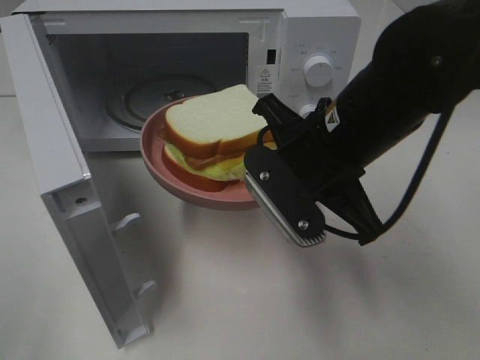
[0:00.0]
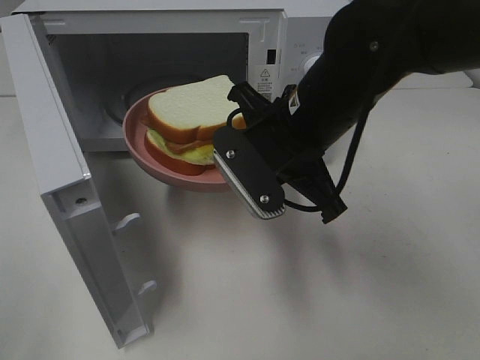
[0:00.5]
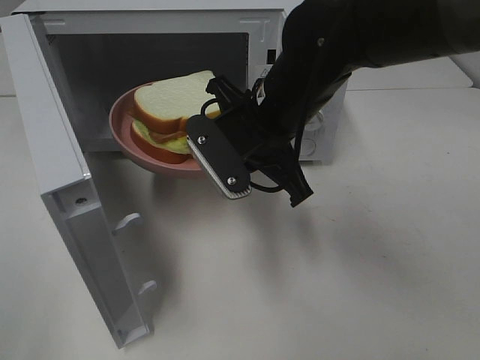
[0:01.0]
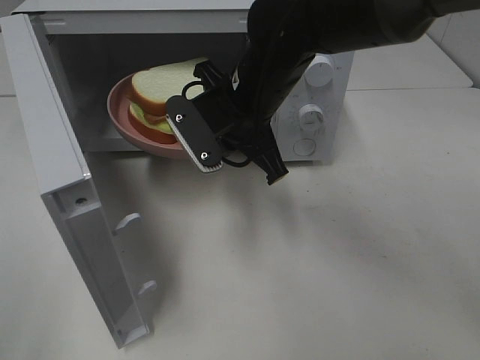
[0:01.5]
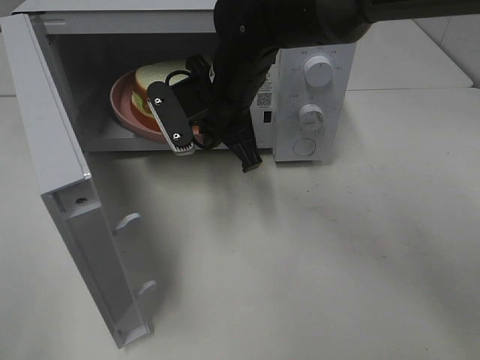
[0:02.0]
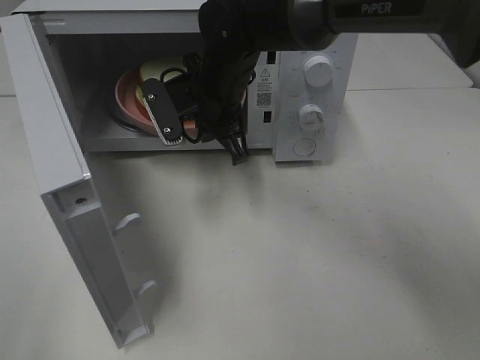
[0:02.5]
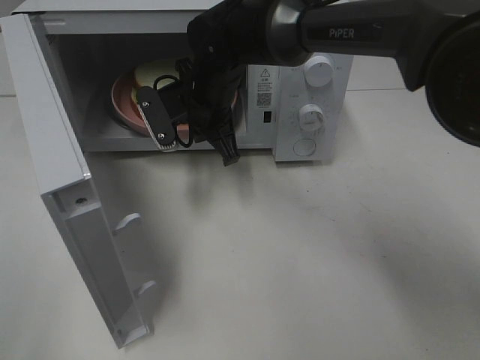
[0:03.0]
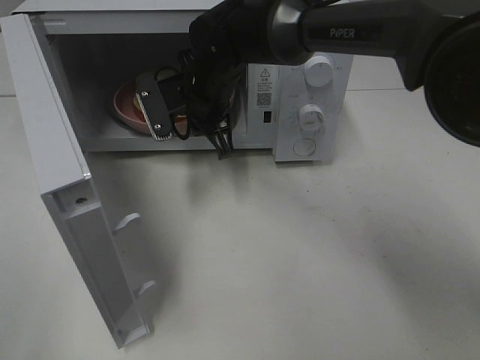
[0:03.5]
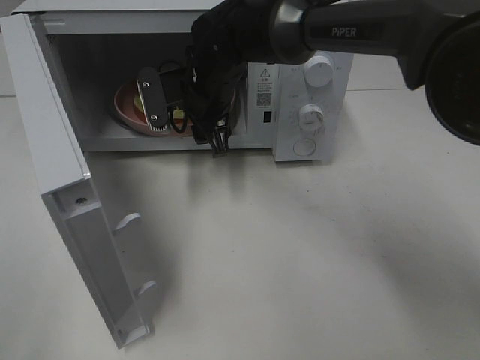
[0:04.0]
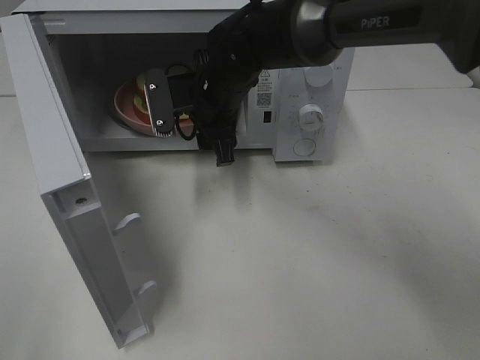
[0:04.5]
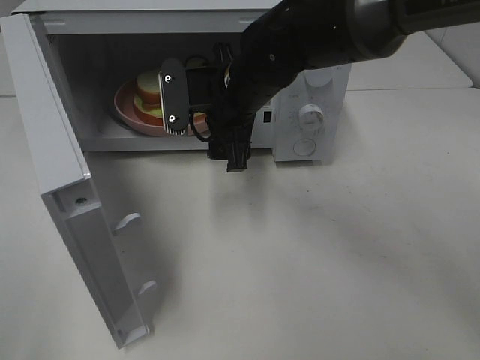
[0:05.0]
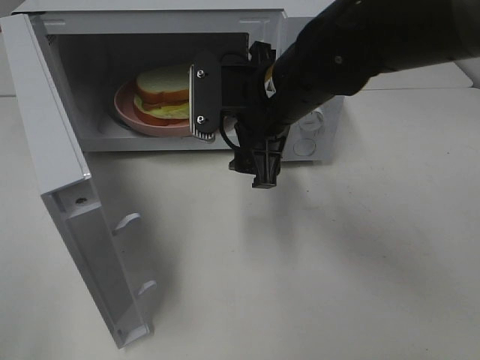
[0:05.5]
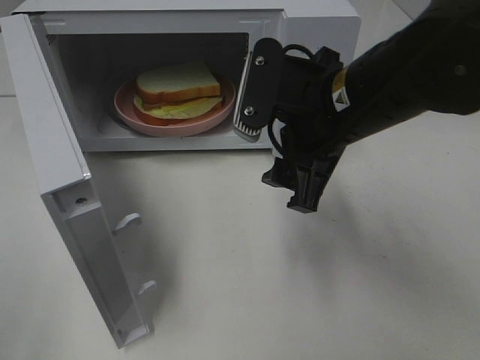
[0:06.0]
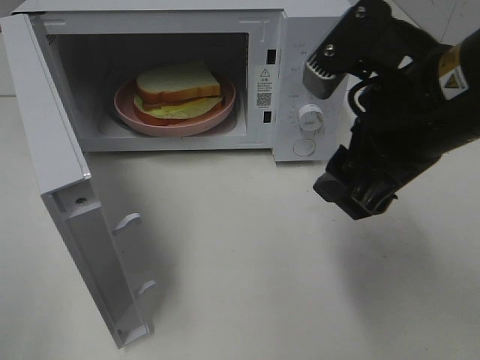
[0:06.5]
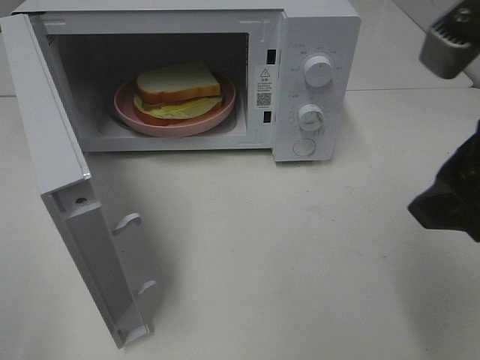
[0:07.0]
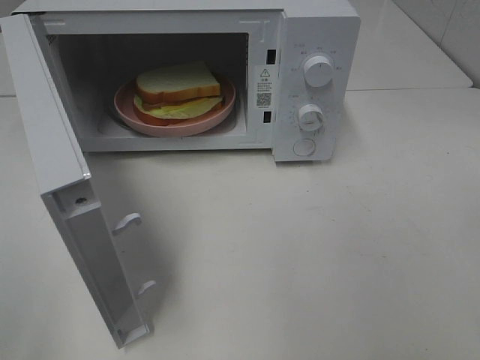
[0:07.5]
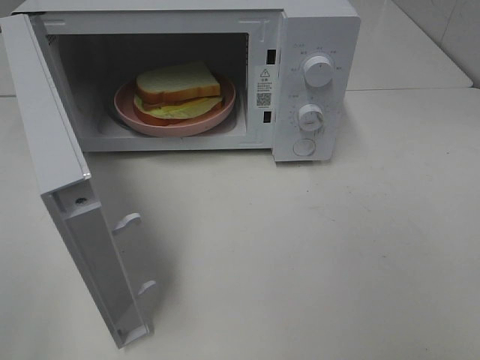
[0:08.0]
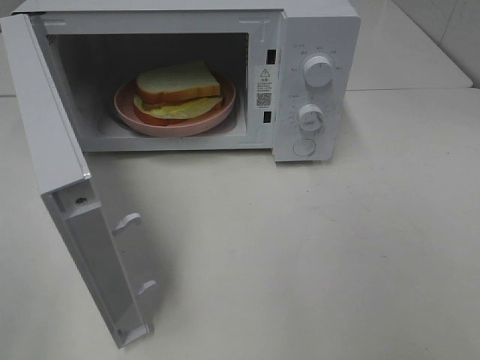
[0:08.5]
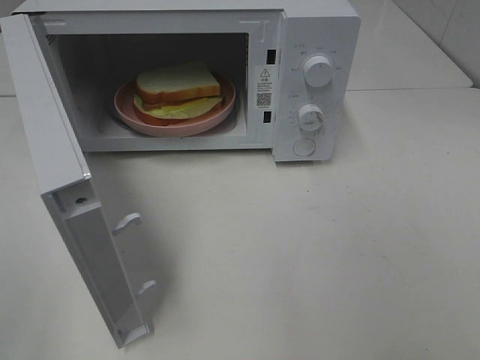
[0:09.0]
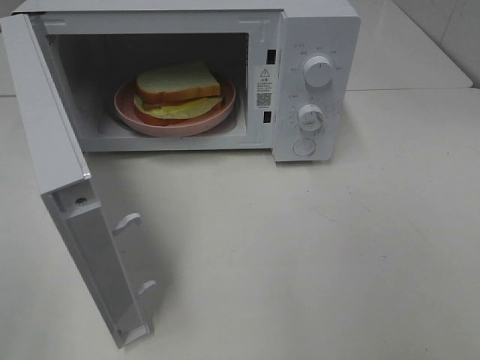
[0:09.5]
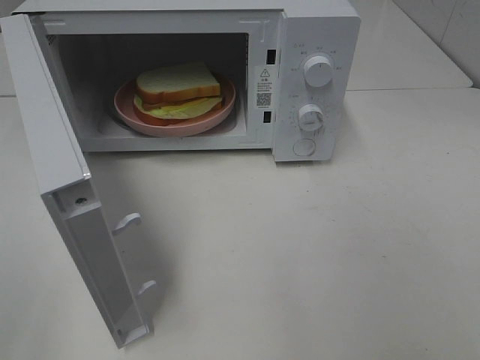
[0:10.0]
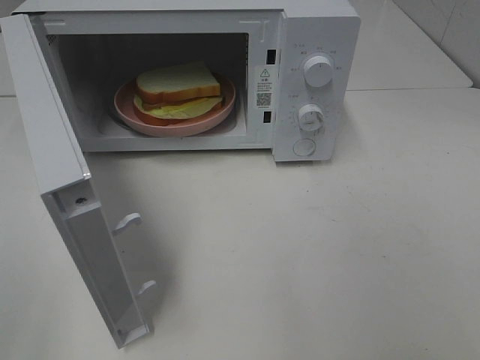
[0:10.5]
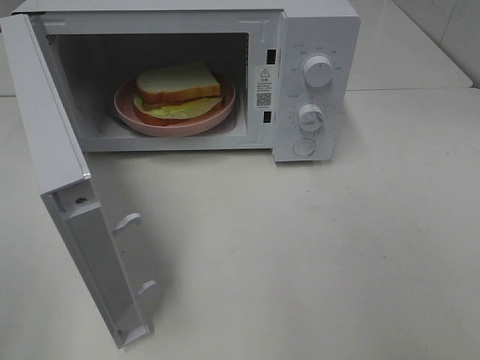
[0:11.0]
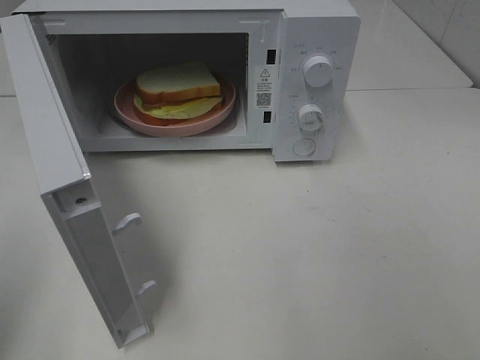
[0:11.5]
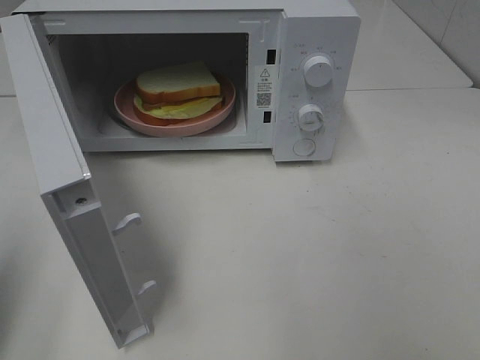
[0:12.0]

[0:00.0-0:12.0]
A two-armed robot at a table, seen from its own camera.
Task of the whole recording: Heat Sandwich.
Step, 0.0 to 5.0 s: Right hand: place the plate in the microwave.
0.0 to 2.0 s: The right gripper heads forward and to the left, covering roughly 15 cm.
2.0 to 4.0 s: The right gripper is displaced forward by about 5 cm, and opens its fingers.
4.0 to 6.0 s: The right gripper moves backward, to the right and upward, approximately 20 cm.
6.0 to 8.0 s: The right gripper goes some 30 cm backward and to the right.
10.0 to 12.0 s: The left gripper travels forward by approximately 10 cm, and closes its fingers.

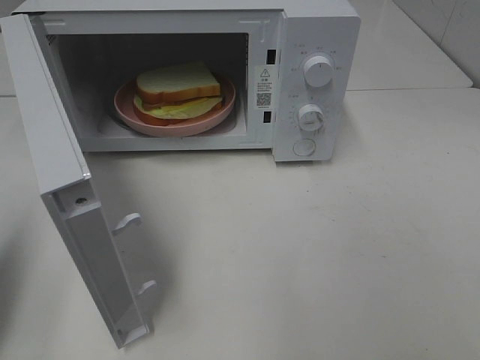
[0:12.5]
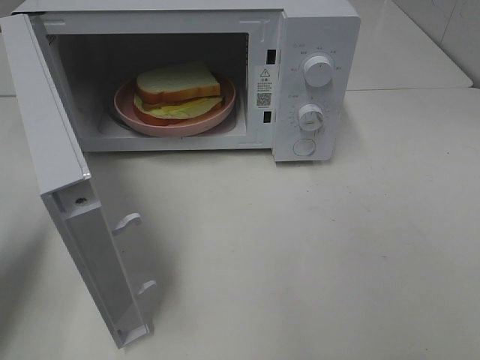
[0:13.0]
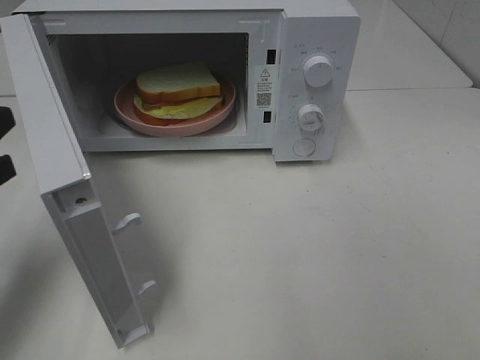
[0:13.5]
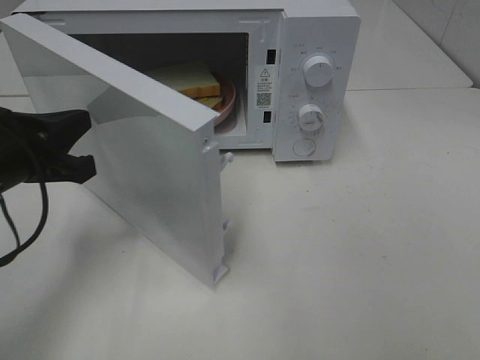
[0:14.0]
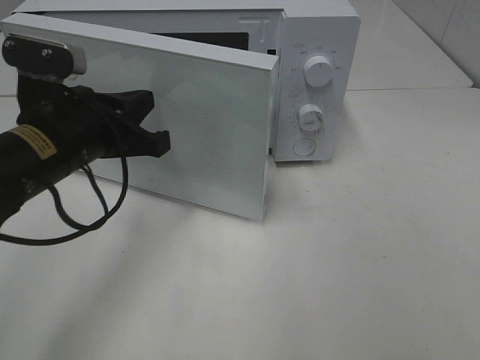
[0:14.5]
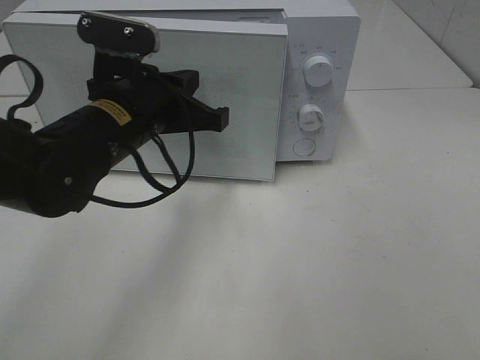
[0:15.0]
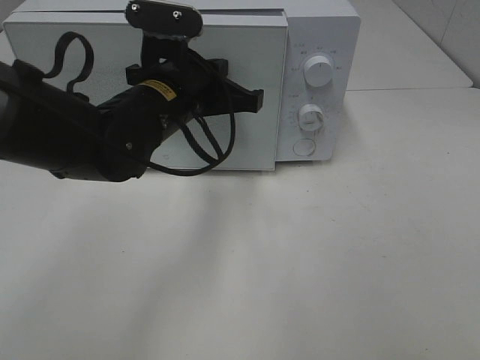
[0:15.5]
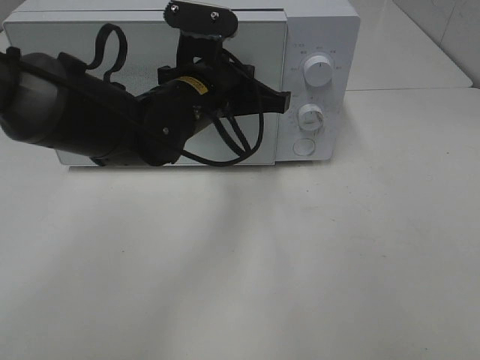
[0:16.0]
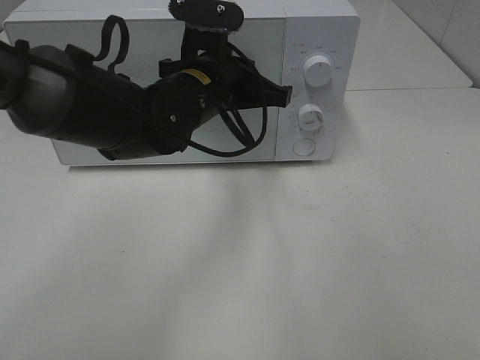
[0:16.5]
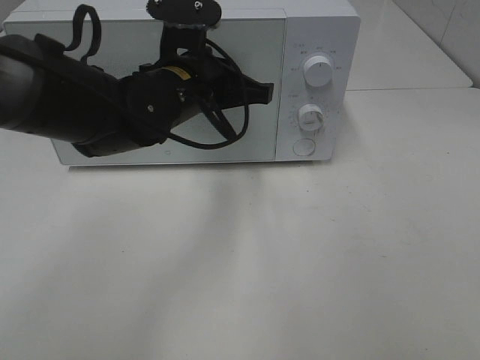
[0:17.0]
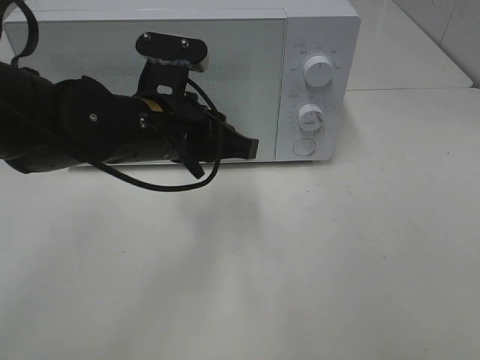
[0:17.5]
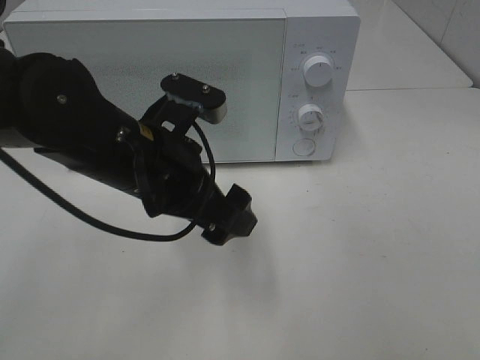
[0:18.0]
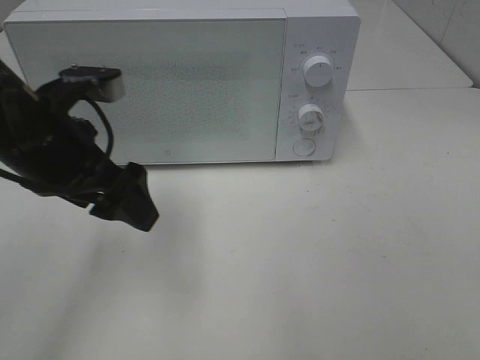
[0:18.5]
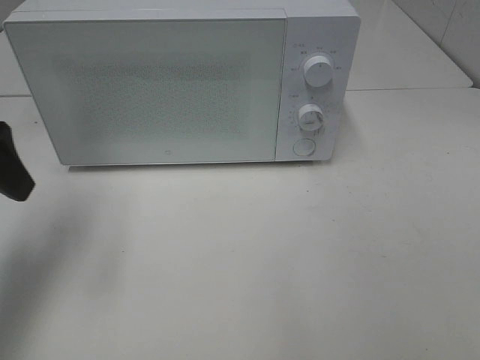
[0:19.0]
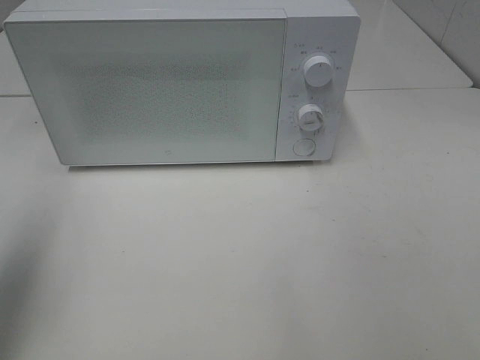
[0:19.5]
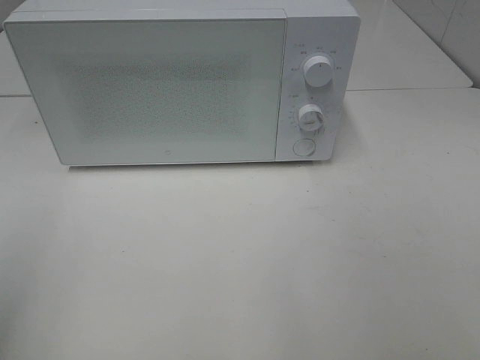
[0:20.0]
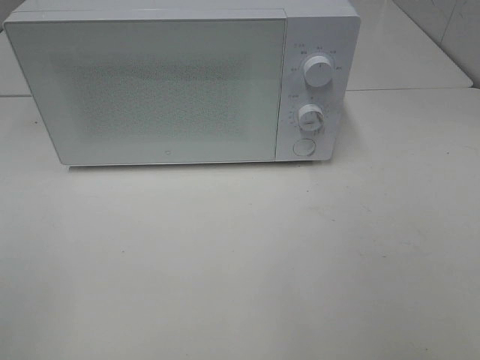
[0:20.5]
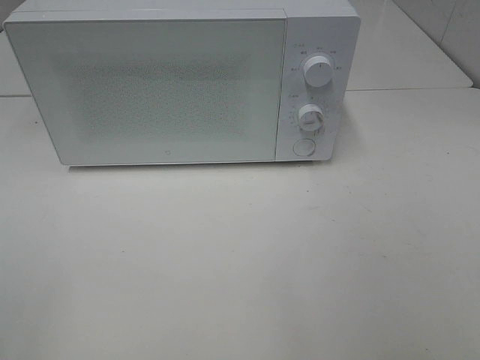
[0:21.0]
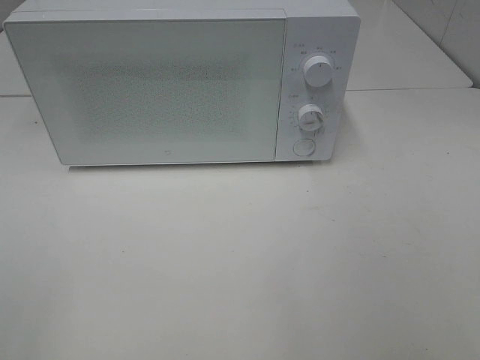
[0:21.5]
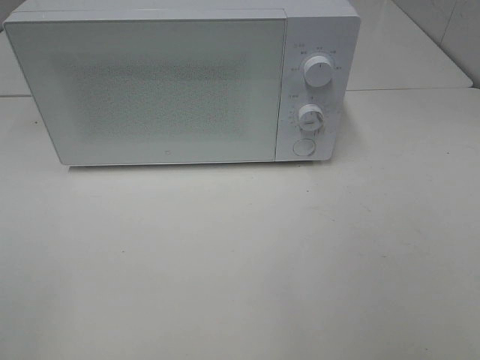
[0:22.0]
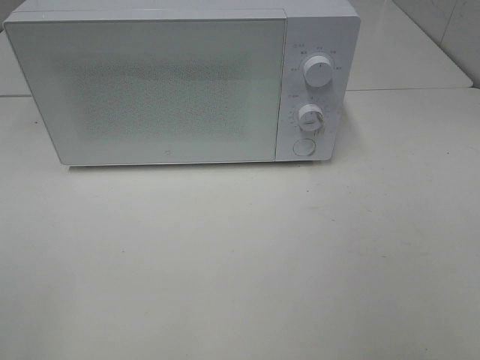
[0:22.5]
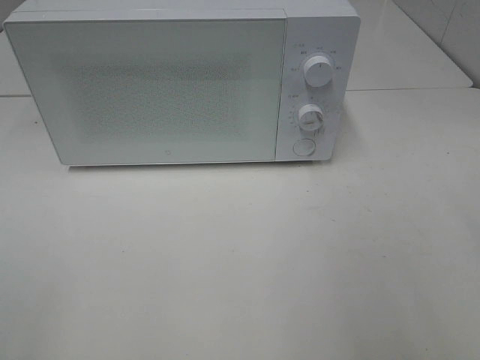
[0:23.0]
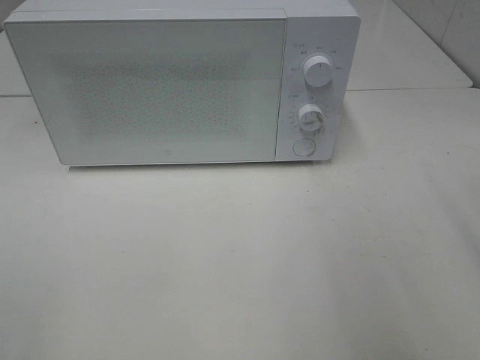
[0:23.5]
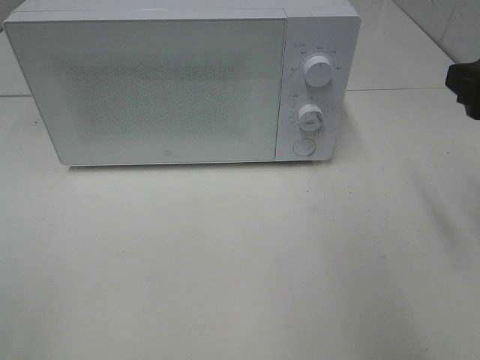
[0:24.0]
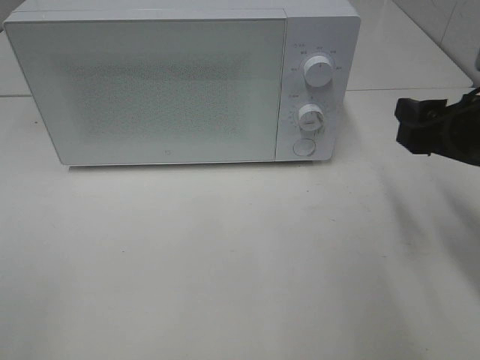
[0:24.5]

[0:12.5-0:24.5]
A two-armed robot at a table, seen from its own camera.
Task of the whole recording: Heat Sandwich.
Step, 12.5 to 17.0 s: Left hand: close the microwave door.
12.5 to 14.5 s: The left gripper is displaced to the right and forward by about 20 cm.
14.5 to 16.5 s: The left gripper heads to the right and forward, covering some 15 cm.
16.5 to 18.5 s: The left gripper is displaced to the left and backward by some 15 cm, and opens its fingers.
18.5 to 20.5 s: The left gripper heads backward and to the left, covering approximately 30 cm.
22.5 to 24.5 s: The right gripper heads forward and downward, covering some 25 cm.

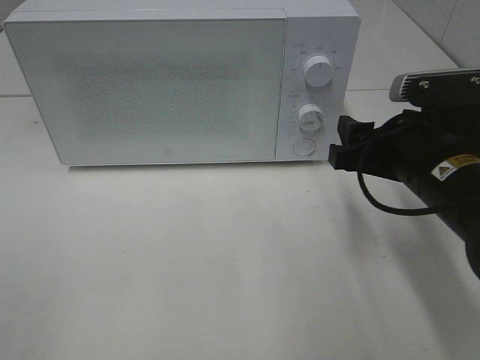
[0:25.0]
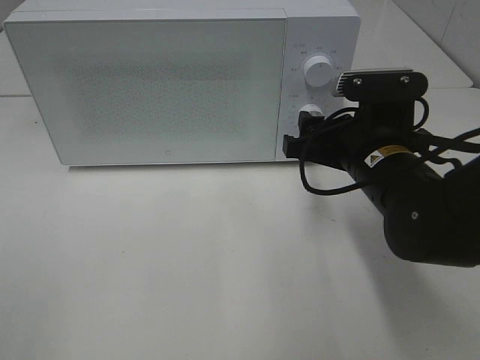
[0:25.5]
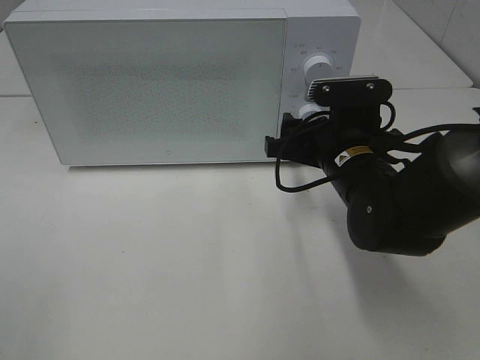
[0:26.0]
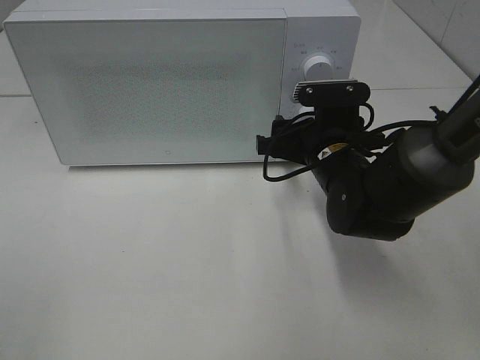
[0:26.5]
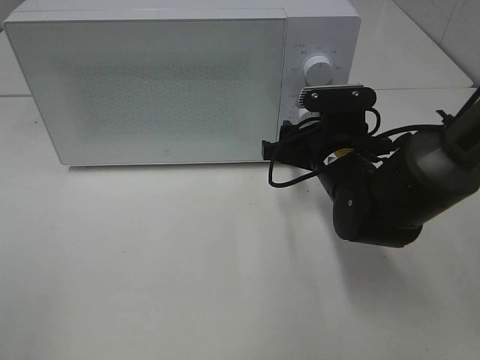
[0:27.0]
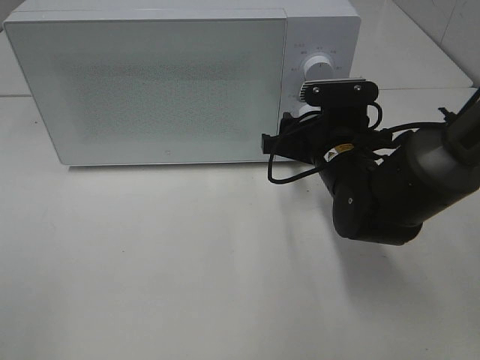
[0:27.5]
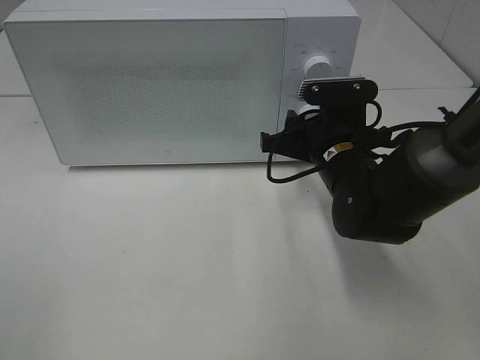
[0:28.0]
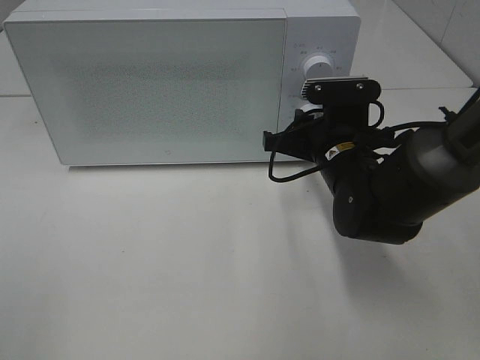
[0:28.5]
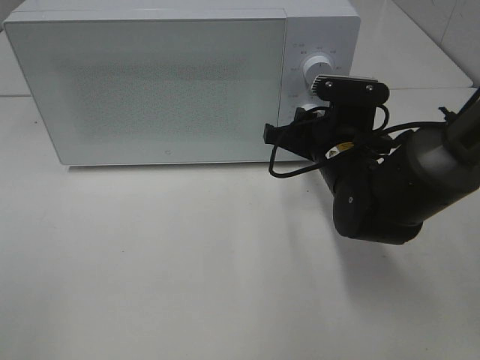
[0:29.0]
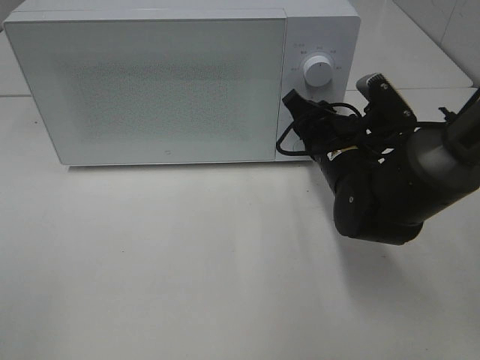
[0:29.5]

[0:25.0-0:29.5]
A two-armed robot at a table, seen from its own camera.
Task of the whole recording: Heat Sandwich.
25.0 to 27.0 s: The right gripper moves forward, to the left and downward, approximately 10 cm.
